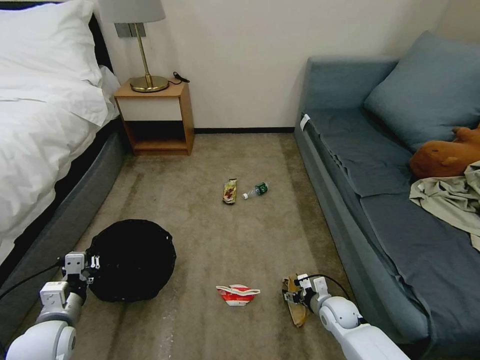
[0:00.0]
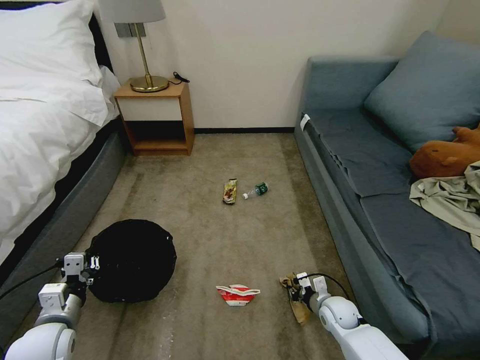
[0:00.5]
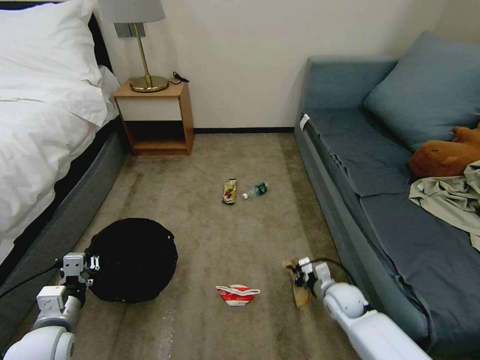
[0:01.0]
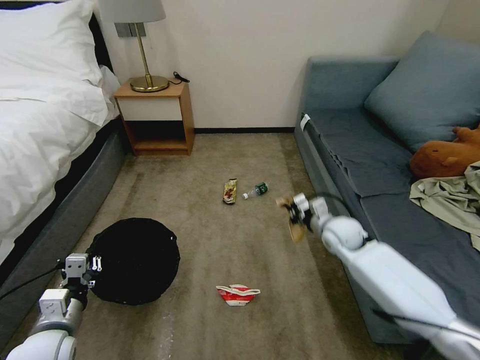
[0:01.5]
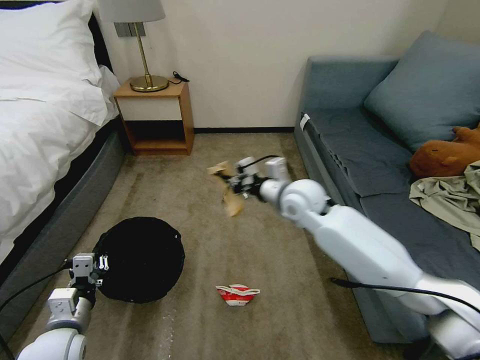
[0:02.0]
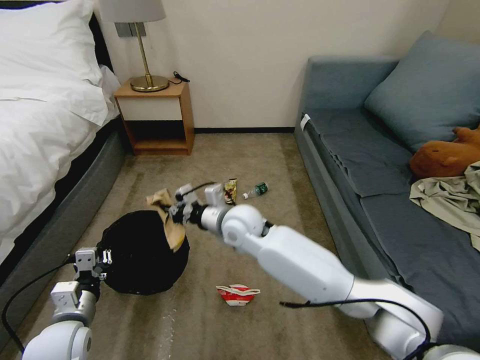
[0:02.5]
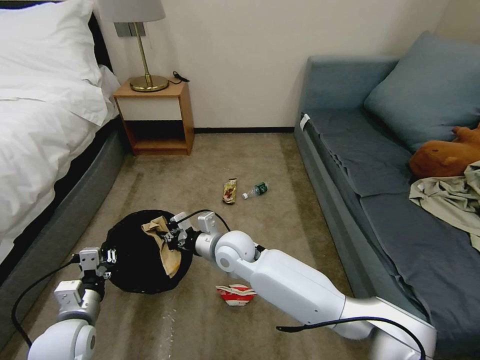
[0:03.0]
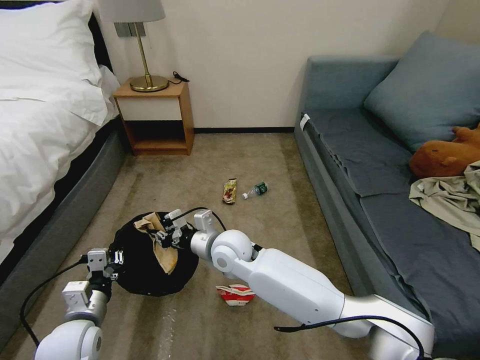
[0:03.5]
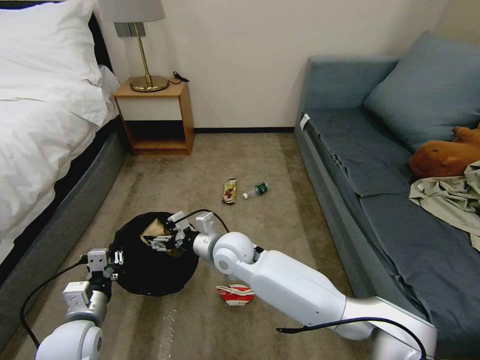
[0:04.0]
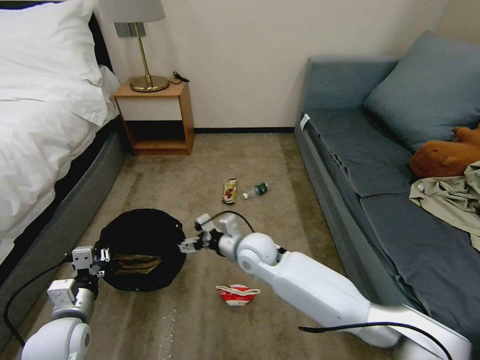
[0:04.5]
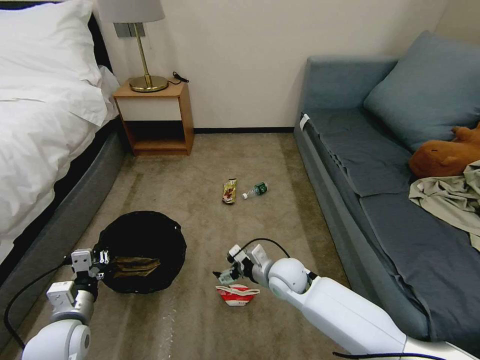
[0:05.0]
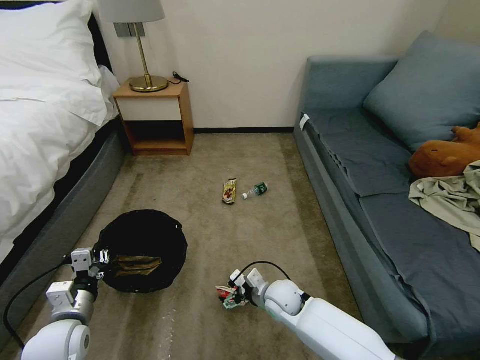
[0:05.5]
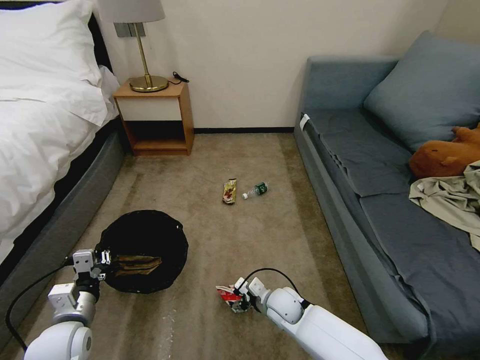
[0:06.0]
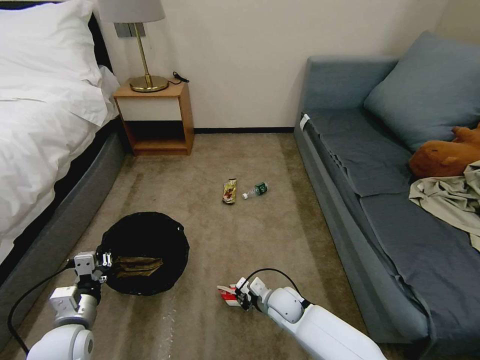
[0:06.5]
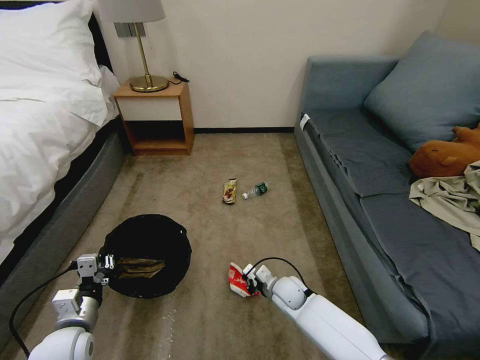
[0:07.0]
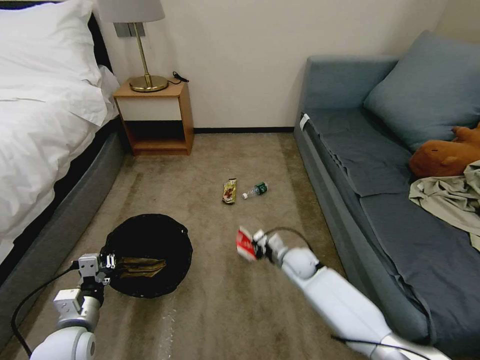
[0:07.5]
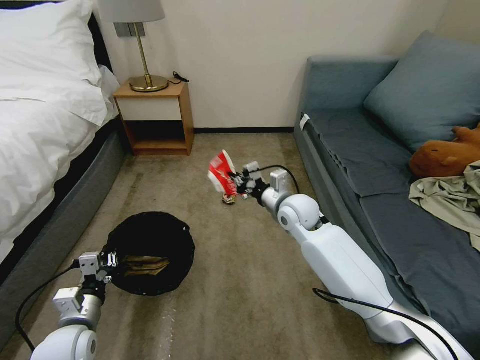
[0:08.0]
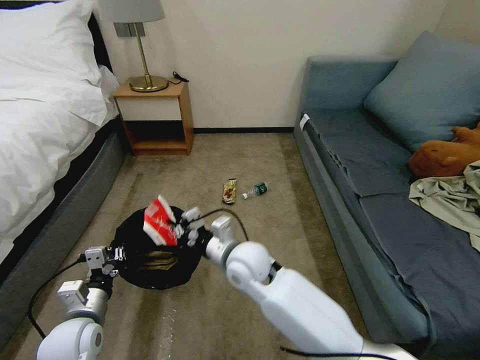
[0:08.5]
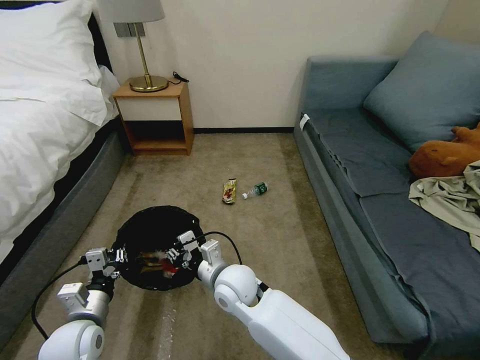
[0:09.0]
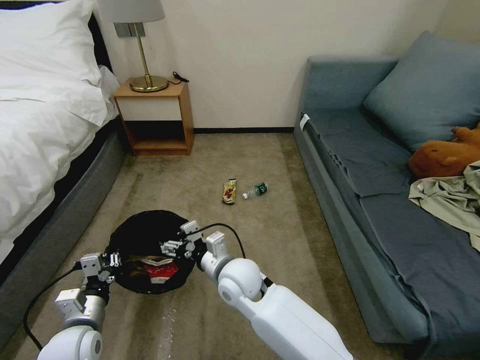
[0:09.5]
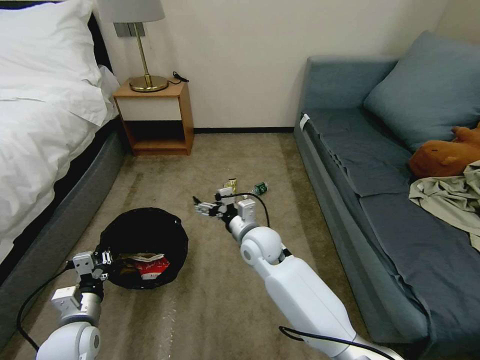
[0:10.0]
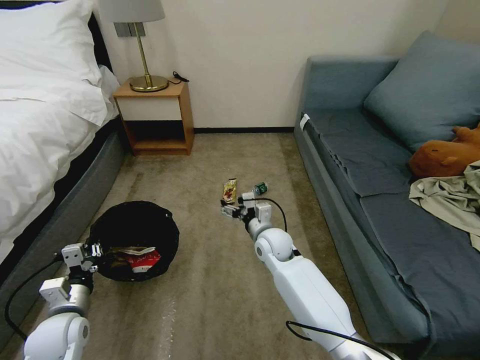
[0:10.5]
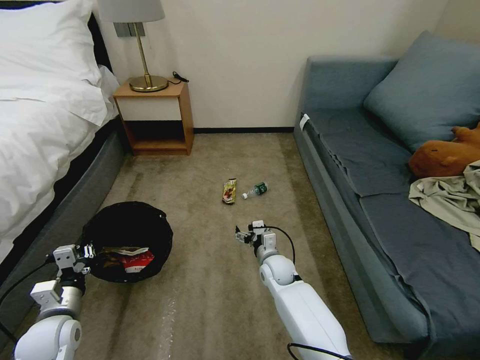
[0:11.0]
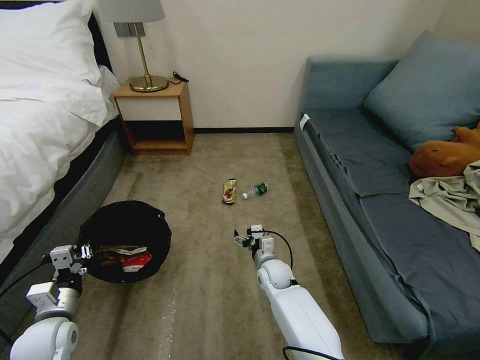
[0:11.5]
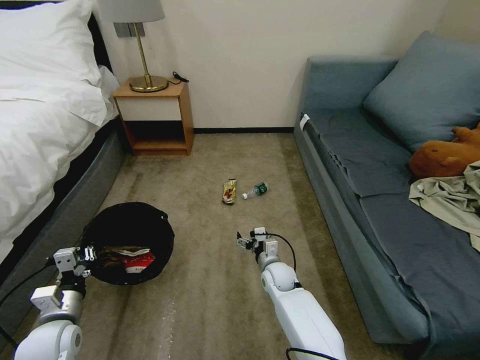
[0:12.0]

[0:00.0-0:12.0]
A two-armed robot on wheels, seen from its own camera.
Task of the whole recording: Pick up the trash bin, then pick up the garbage on the floor and place it into the trash bin.
0:00.0 to 0:02.0: The right gripper shifts some 40 cm upward, forward and to the left, and closes.
0:02.0 to 0:04.0: The right gripper moves to the left, downward and backward, about 20 cm, and opens.
0:04.0 to 0:06.0: The right gripper is displaced downward and to the right by about 25 cm.
0:06.0 to 0:08.0: The right gripper shifts some 25 cm upward and forward, and closes.
0:08.0 to 0:10.0: The right gripper goes approximately 10 cm to the left and backward, and opens its fingers.
0:10.0 to 0:12.0: The right gripper goes approximately 15 cm downward.

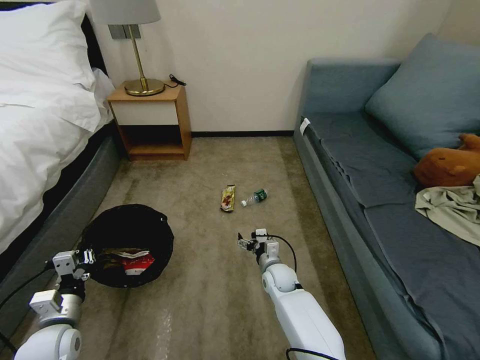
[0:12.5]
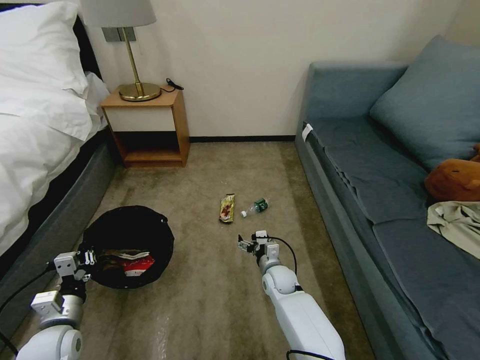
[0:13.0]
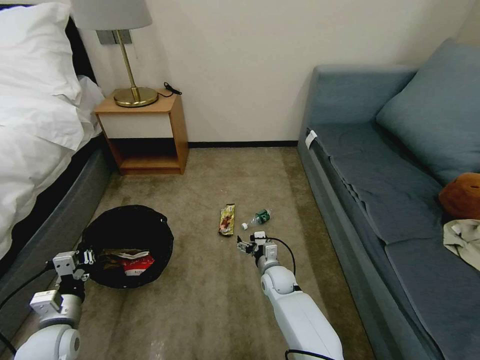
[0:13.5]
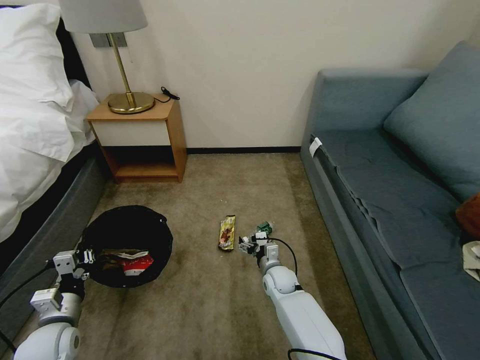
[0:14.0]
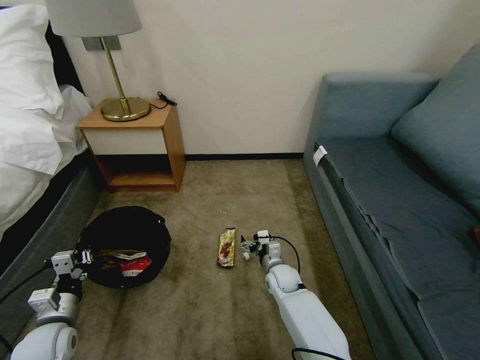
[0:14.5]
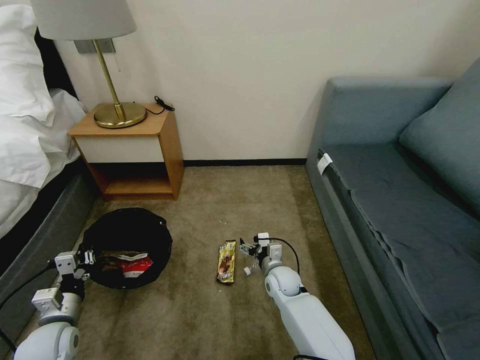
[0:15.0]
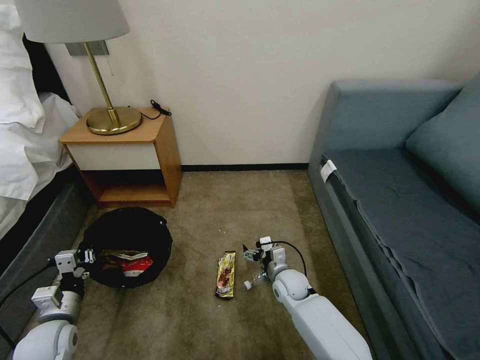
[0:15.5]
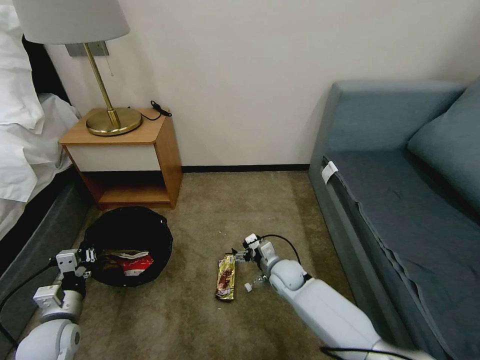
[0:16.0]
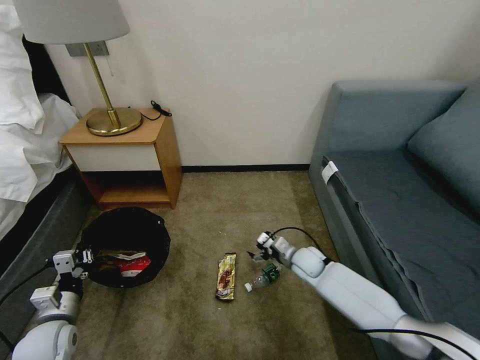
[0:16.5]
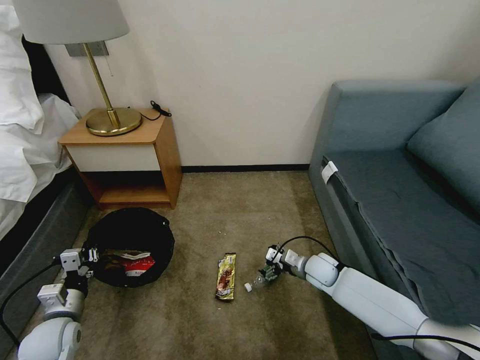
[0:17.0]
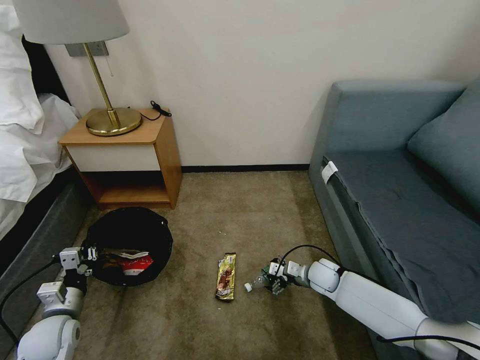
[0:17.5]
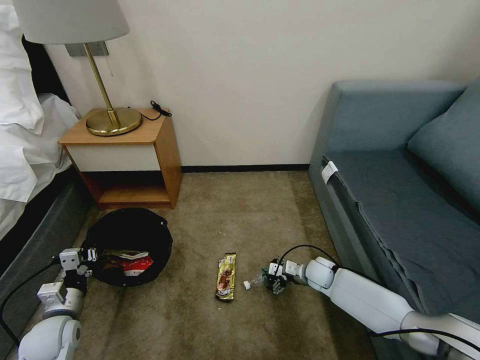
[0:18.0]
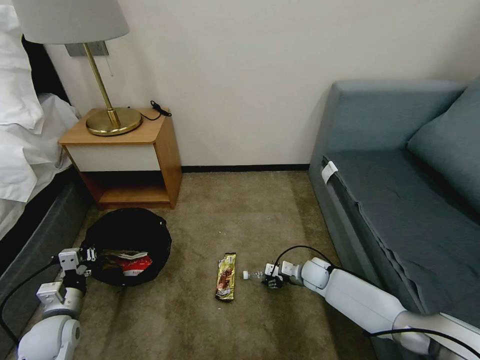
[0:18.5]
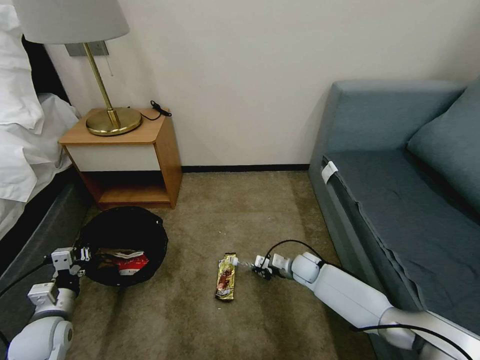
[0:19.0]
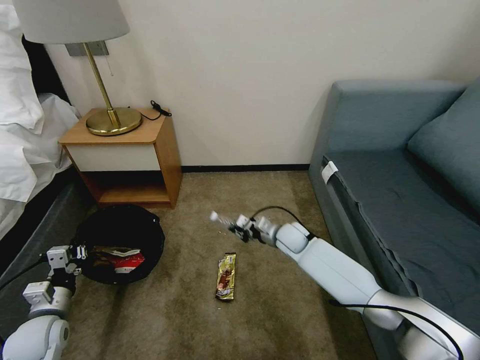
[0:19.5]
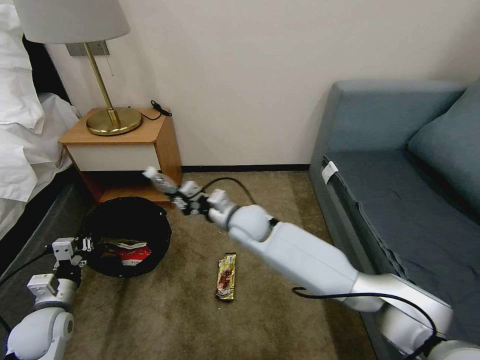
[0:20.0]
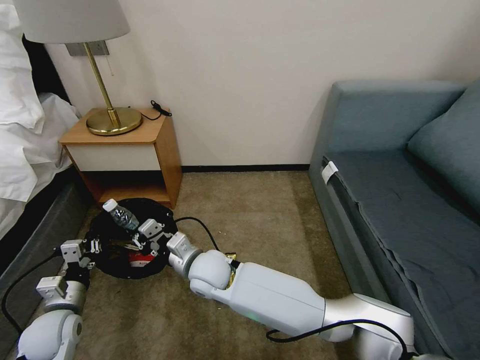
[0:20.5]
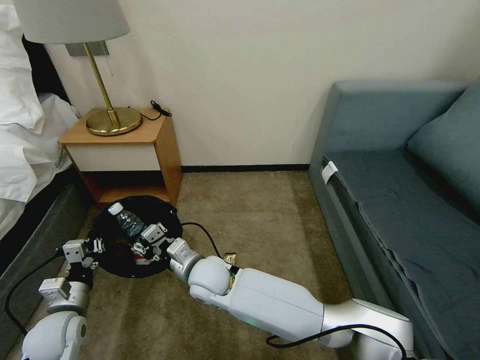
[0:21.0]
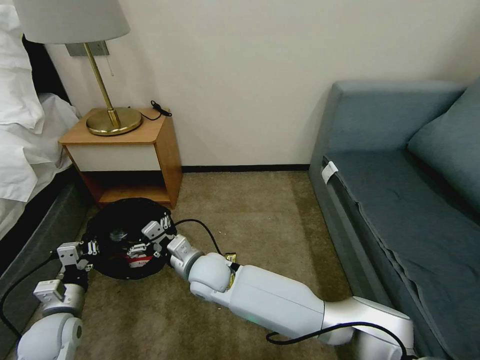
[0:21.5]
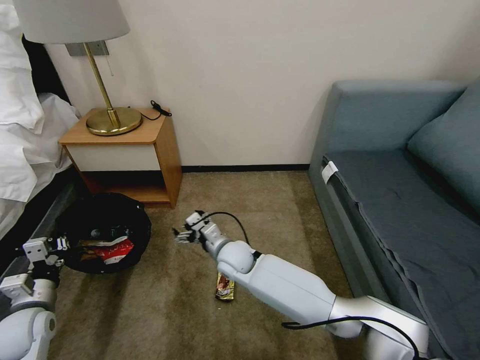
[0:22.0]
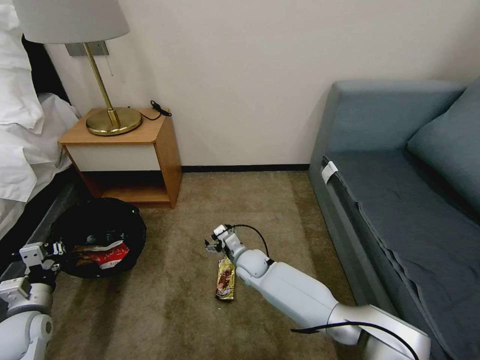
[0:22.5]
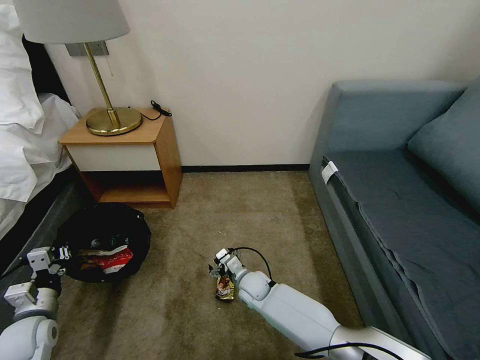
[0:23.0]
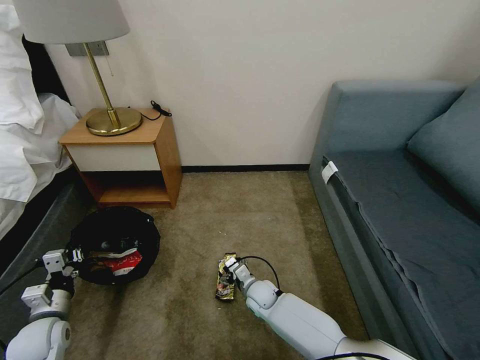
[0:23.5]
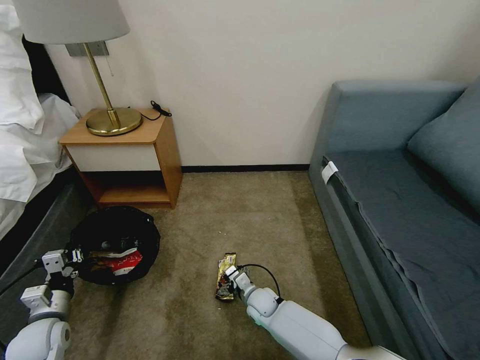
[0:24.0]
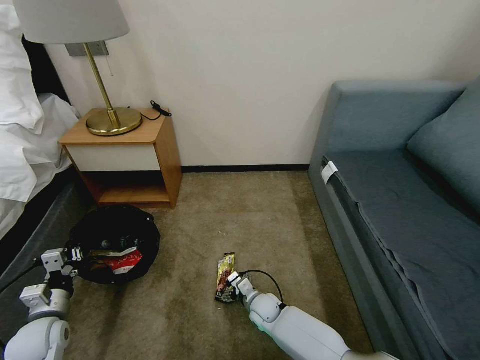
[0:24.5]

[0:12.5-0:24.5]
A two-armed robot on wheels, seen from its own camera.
Task of the whole recording: Pick up the trash bin, then pick up the garbage on the floor and place it into the trash bin.
0:14.5 to 0:16.5: The right gripper travels to the right by about 10 cm.
0:16.5 to 0:18.5: The right gripper goes approximately 5 cm downward, and closes its fingers.
0:18.5 to 0:20.5: The right gripper travels to the left and upward by some 35 cm, and closes its fingers.
0:20.5 to 0:22.5: The right gripper travels downward, to the right and forward by about 20 cm, and opens up. Meanwhile the left gripper is displaced to the left by approximately 5 cm.
0:22.5 to 0:24.5: The right gripper is displaced downward and backward by some 15 cm.

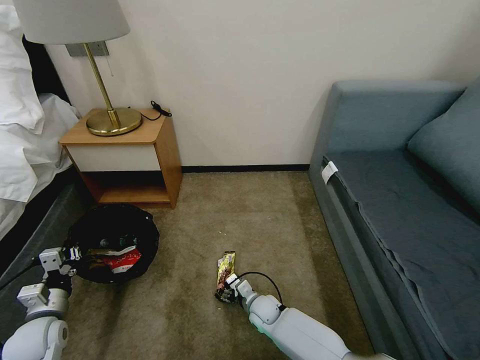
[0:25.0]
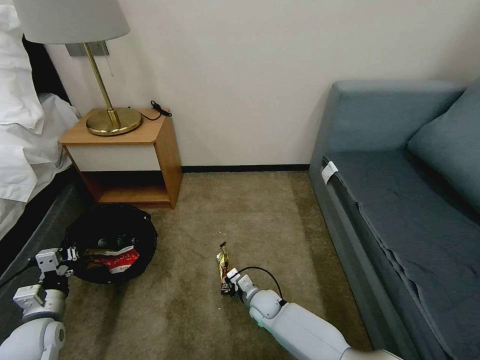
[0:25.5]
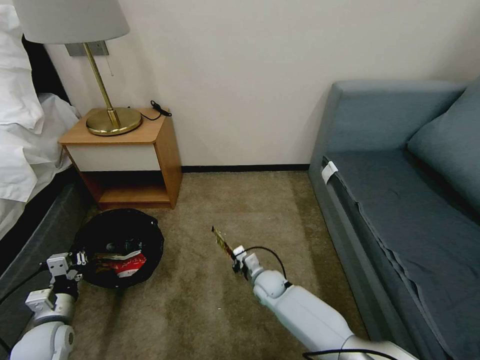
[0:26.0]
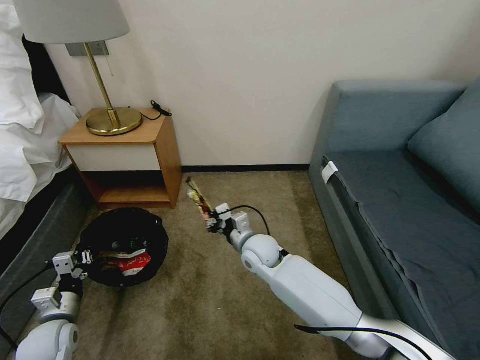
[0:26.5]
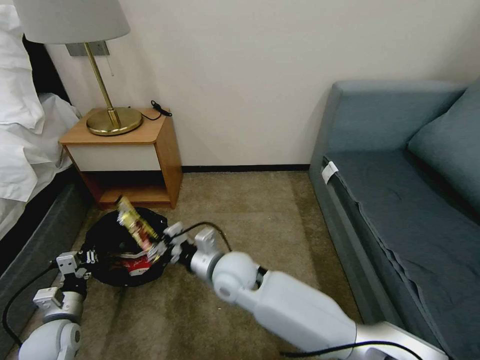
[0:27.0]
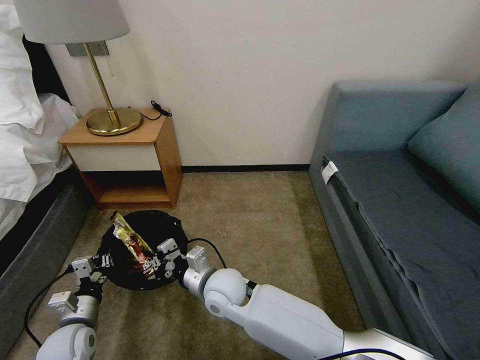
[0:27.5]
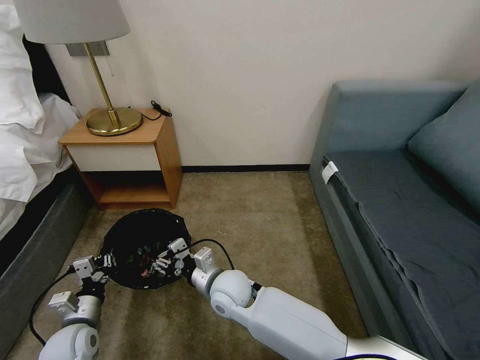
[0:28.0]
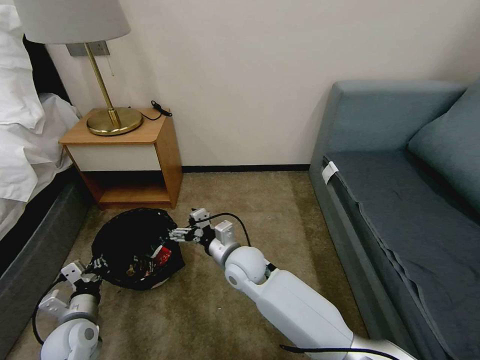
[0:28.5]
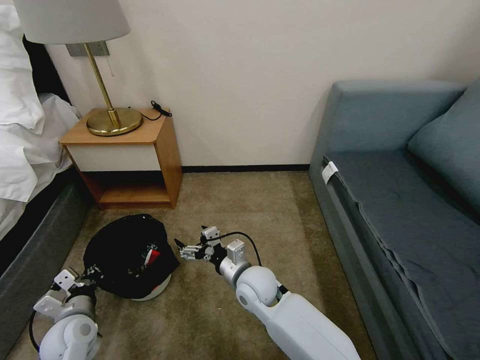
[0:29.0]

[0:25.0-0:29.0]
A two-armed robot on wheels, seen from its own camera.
Task of the whole recording: Pick up the trash bin, then pick up the garbage on the floor and place it into the trash bin.
0:25.0 to 0:27.0: The right gripper goes roughly 25 cm upward, and closes.
0:27.0 to 0:29.0: The right gripper heads downward and to the right, covering roughly 10 cm, and opens up.
